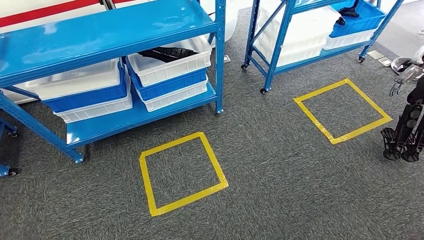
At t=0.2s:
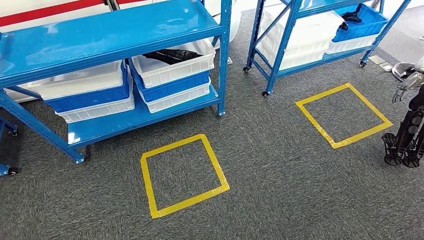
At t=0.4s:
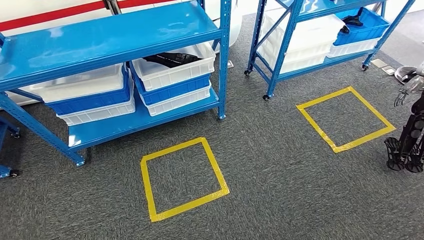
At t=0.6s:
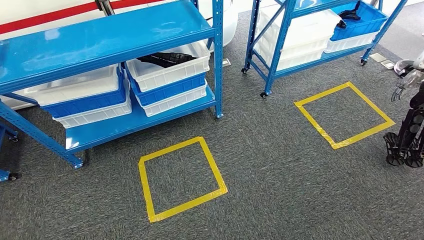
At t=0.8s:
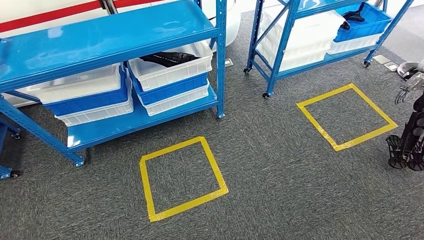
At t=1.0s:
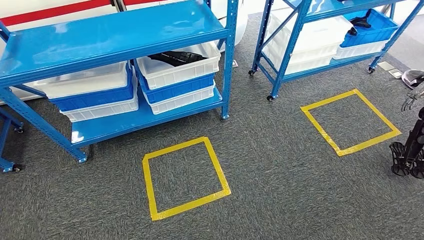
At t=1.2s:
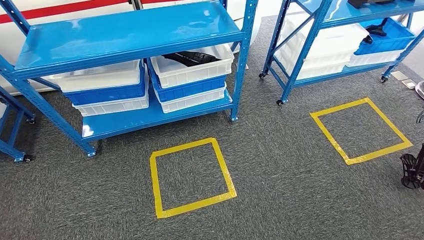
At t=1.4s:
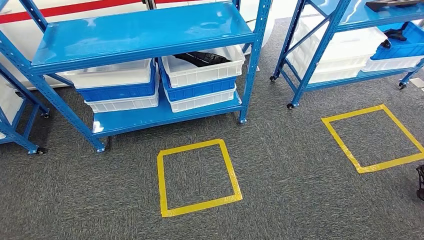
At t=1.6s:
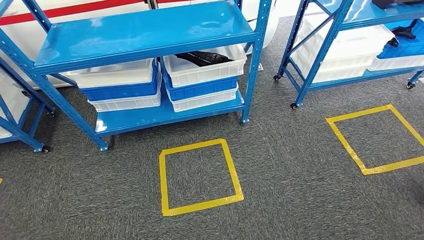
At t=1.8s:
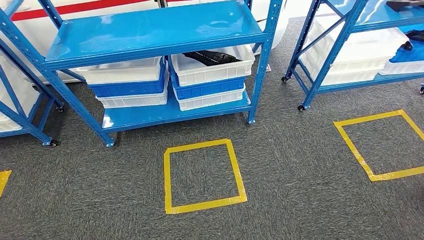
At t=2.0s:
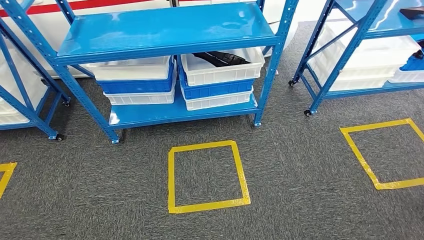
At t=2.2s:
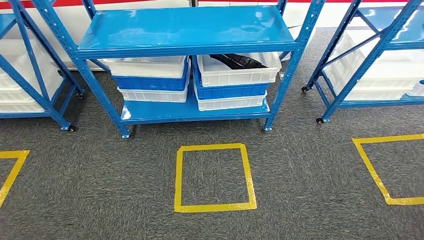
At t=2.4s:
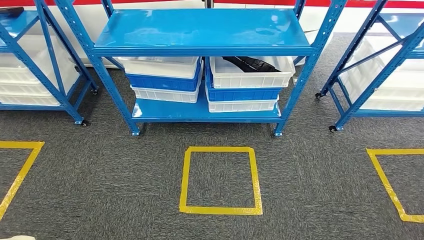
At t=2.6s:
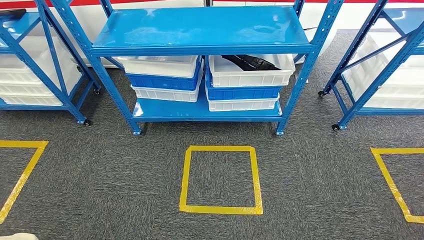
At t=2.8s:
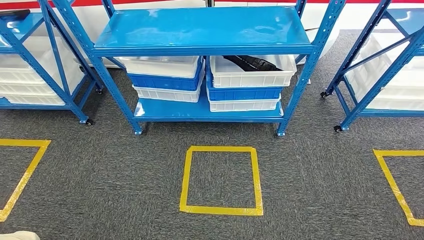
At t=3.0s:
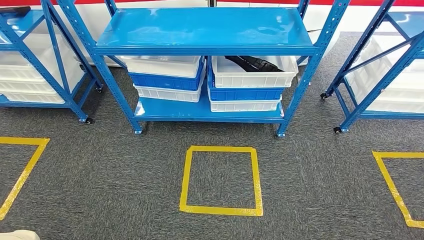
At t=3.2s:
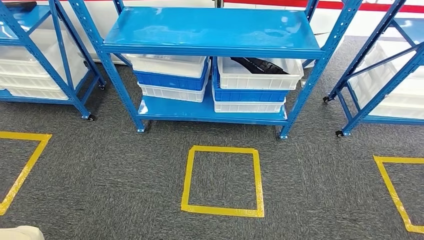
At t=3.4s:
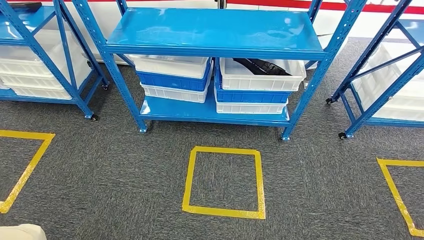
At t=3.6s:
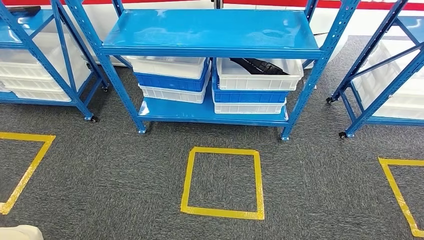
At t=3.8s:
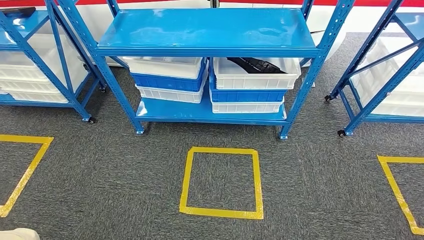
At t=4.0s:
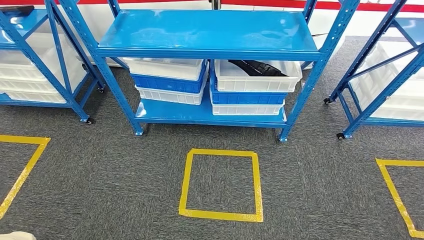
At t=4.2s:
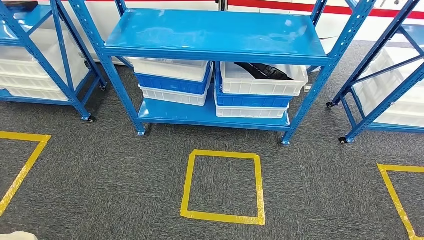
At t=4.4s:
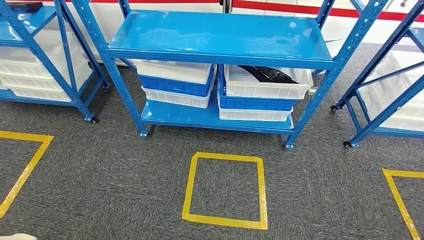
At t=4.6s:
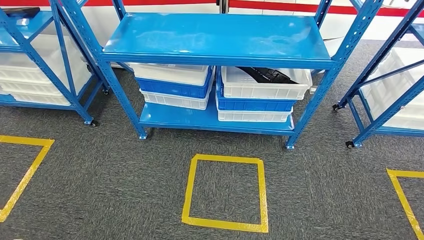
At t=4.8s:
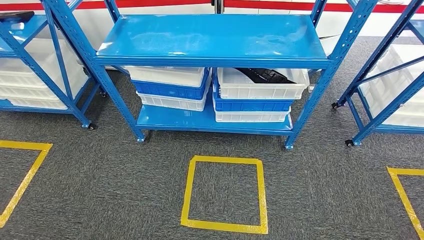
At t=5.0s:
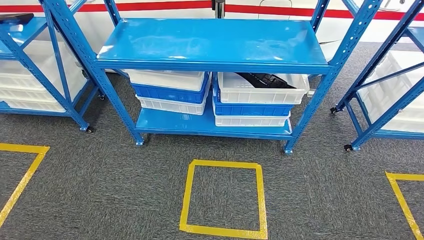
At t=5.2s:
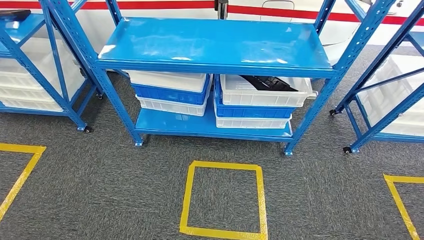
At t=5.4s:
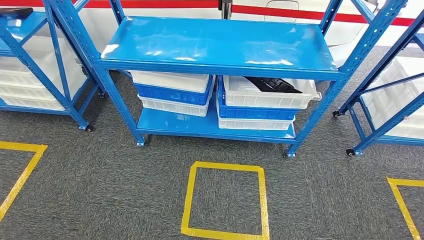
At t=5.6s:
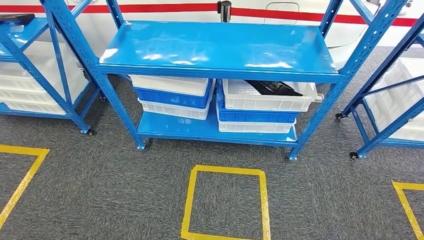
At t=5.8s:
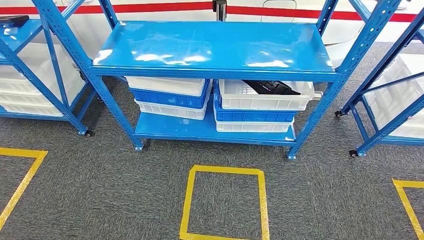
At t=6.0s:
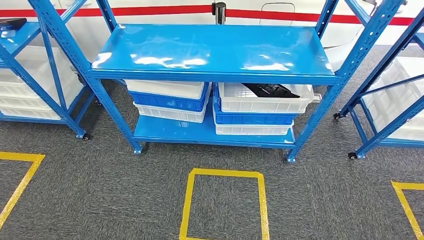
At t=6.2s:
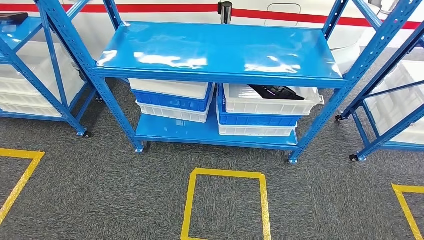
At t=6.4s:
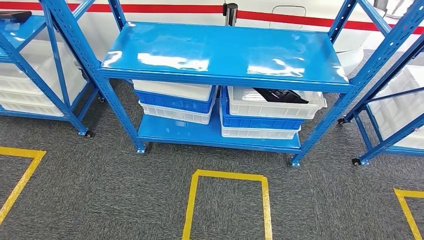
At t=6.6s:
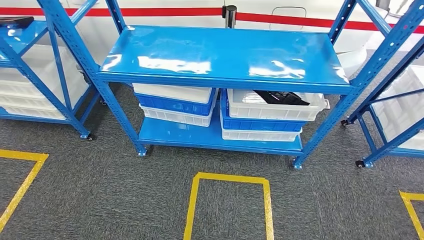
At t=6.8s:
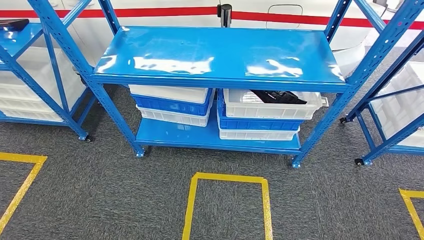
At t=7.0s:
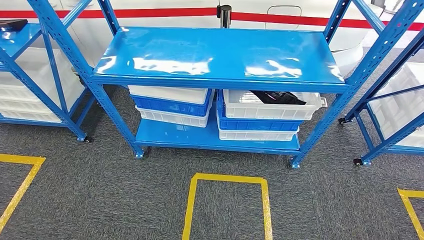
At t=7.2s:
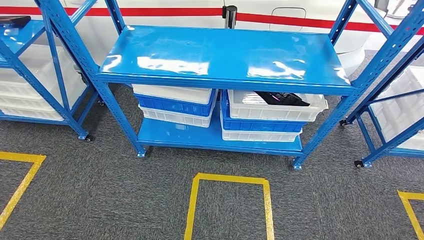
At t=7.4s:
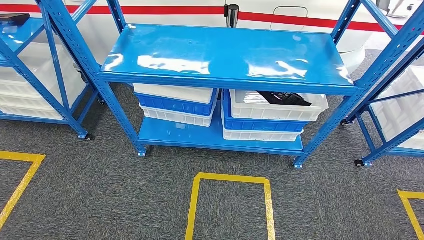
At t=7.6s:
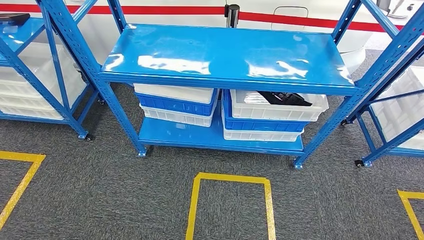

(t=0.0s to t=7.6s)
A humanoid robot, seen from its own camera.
Step, t=0.0s - t=7.6s: Move to the initial position of the shelf.
